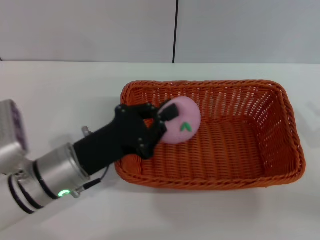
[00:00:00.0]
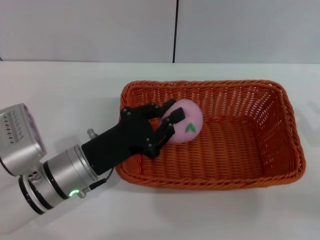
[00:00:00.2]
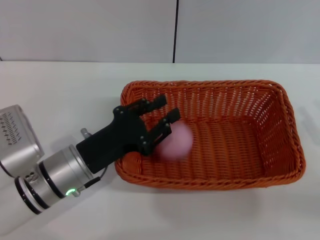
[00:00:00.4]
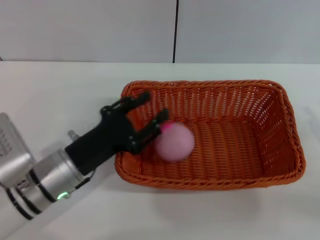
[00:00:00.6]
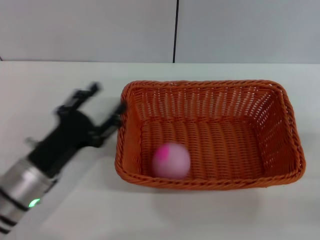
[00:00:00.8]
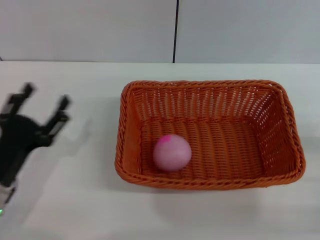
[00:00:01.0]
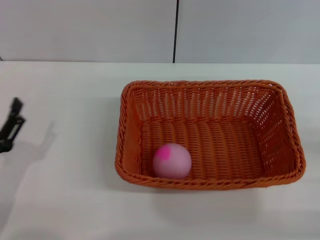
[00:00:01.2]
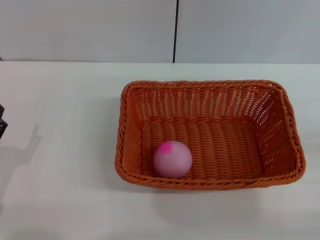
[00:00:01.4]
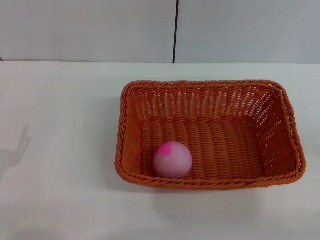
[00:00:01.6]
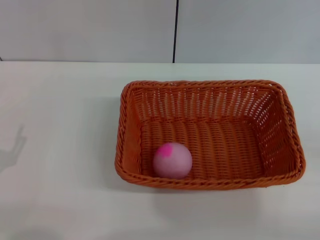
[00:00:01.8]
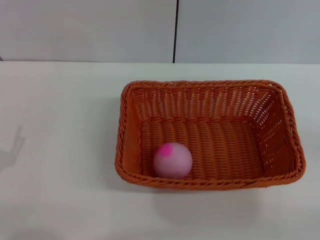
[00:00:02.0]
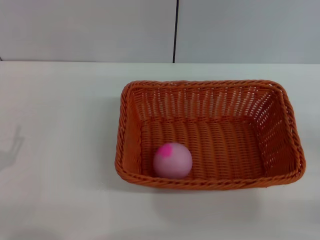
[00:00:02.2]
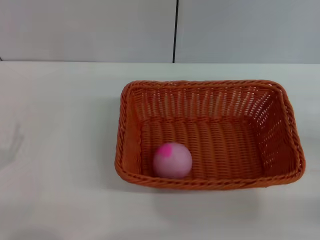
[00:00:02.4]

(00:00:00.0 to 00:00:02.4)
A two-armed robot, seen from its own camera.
Step, 00:00:00.0 - 00:00:00.8: Place the peach into the basket with the left gripper.
00:00:00.0 - 00:00:01.2: The right gripper changes place by about 5 cm; the left gripper travels to the left and backward by roughly 15 cm, and opens up.
